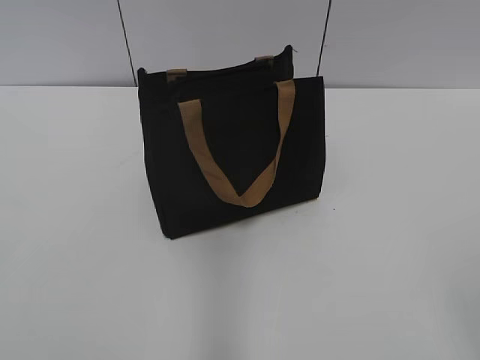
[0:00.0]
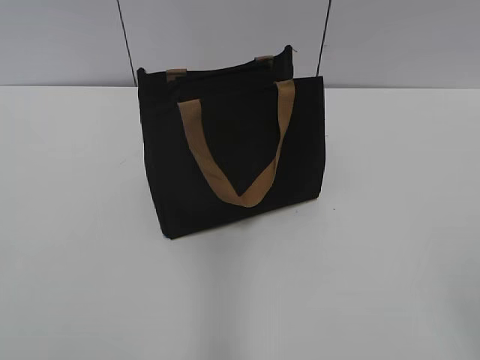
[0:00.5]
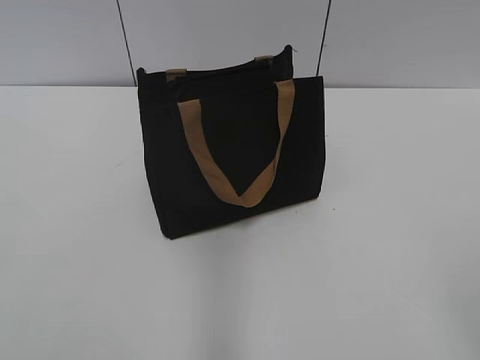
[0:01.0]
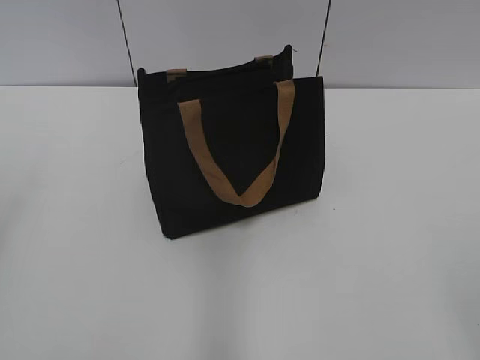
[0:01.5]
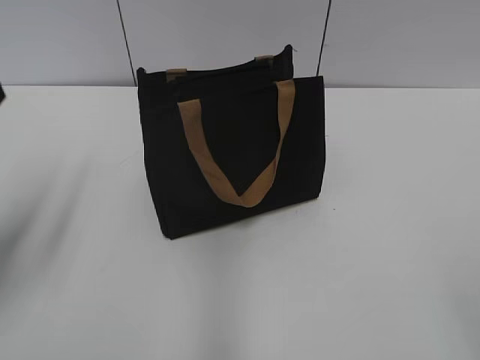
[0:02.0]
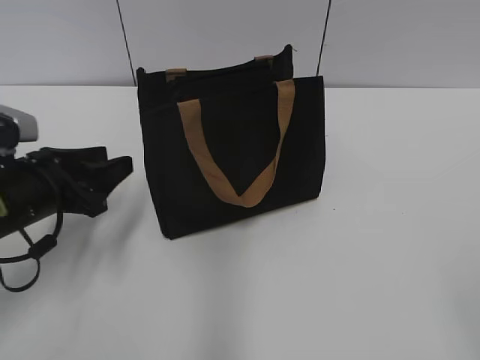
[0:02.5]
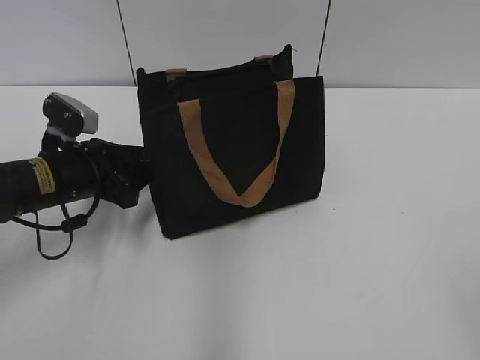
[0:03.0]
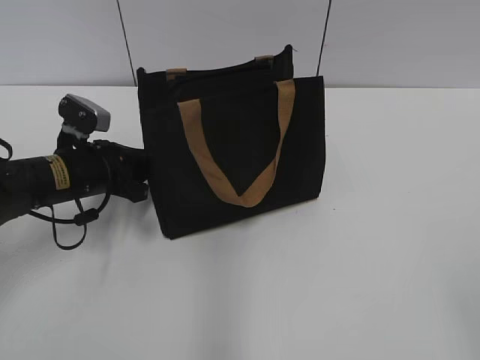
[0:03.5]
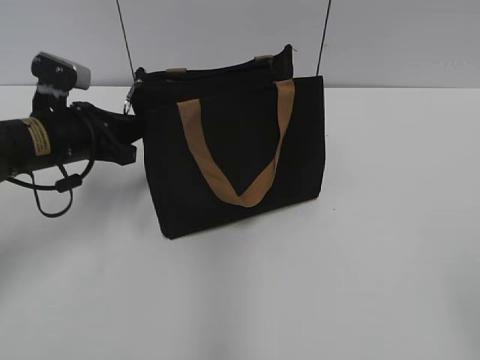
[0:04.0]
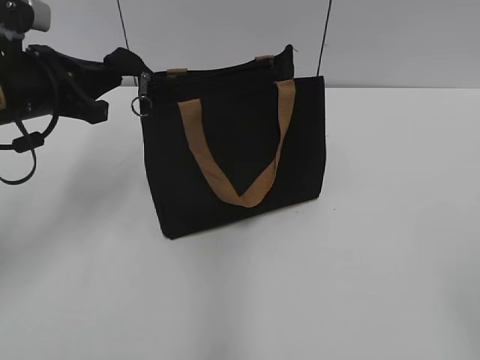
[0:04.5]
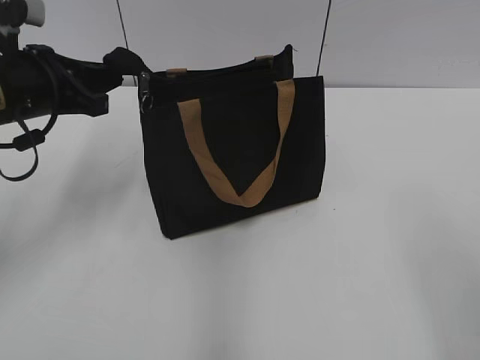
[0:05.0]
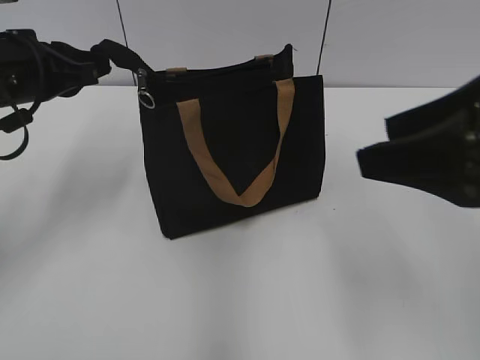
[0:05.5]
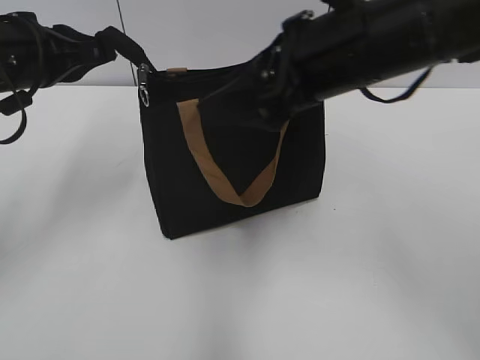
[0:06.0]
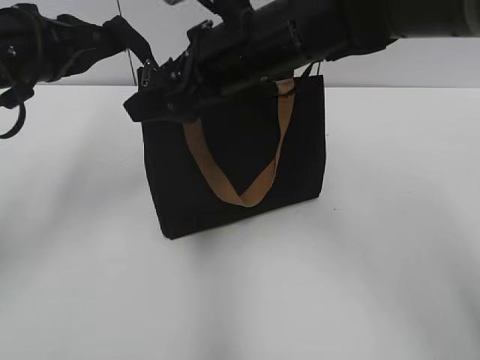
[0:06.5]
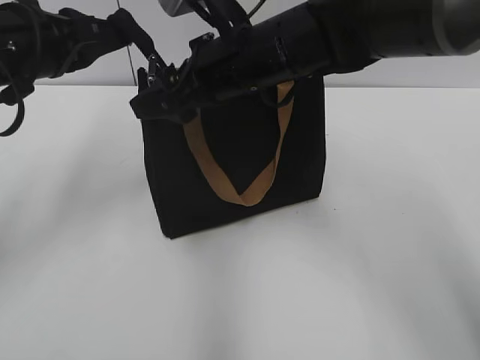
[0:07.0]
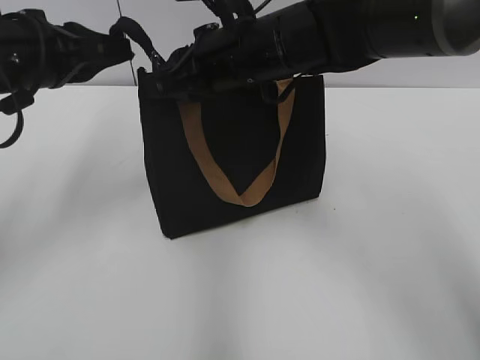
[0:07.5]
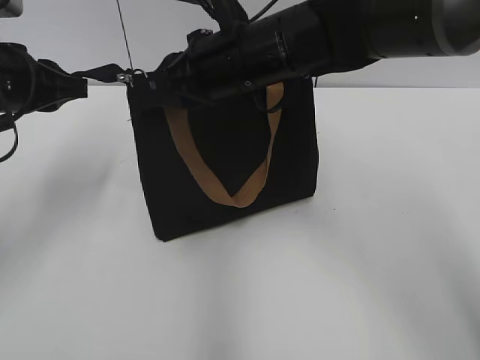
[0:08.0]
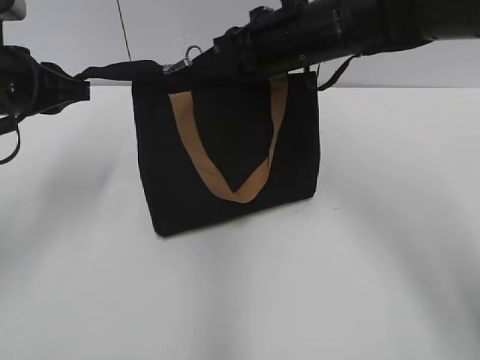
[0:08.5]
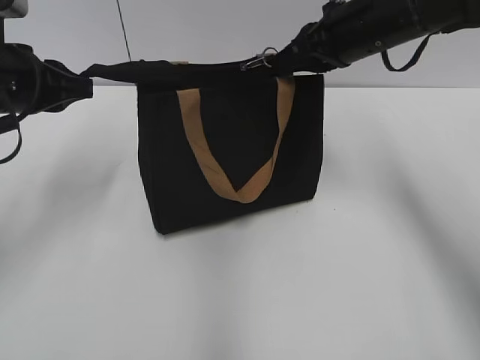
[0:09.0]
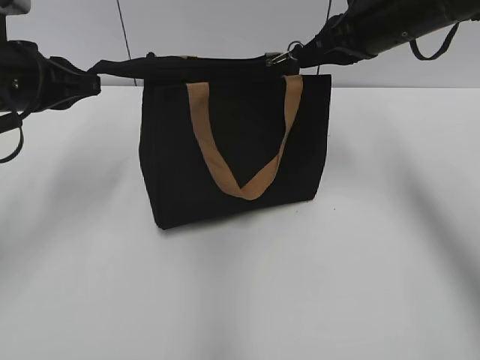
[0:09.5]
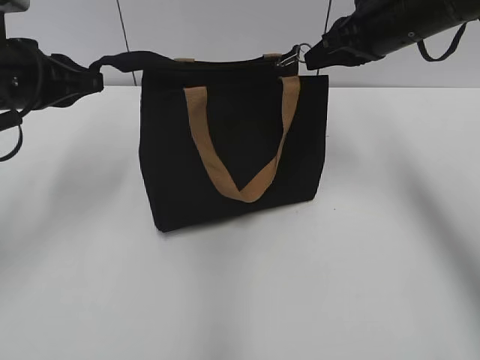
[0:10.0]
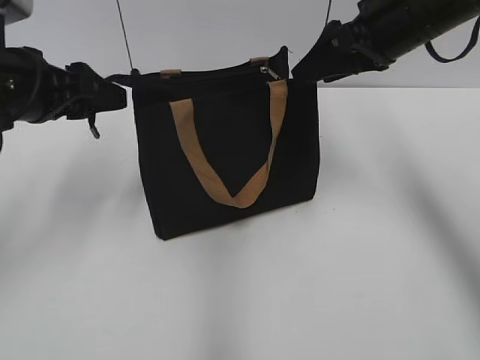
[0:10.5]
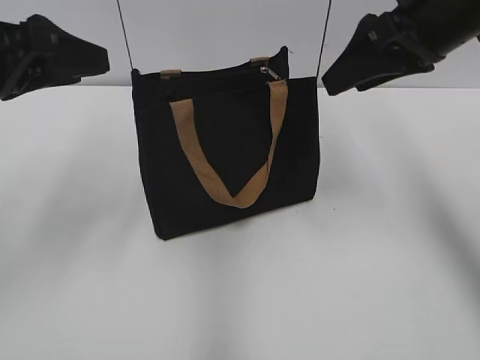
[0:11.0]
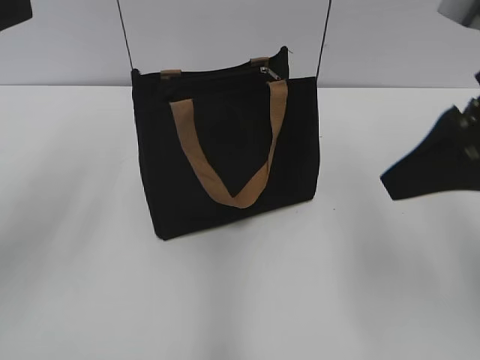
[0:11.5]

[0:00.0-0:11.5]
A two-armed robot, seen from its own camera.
Step, 0:00.0 to 0:10.0: Zip up the bag with your right hand.
0:02.0 to 0:04.0: The left gripper is displaced forward, downward and to the right by approximately 20 cm, and closes.
0:04.0 to 0:06.0: The right gripper is displaced forward and to the left by about 30 cm. The left gripper moves upward, about 10 cm.
0:06.0 to 0:07.5: The right gripper is displaced to the left, forward and downward by about 15 cm, and closes.
0:07.5 to 0:09.5: The right gripper shifts about 15 cm to the right.
0:09.5 to 0:11.5: The right gripper shifts some 15 cm backward, and opens up; the left gripper heads backward and upward, covering about 15 cm, and opens its fingers.

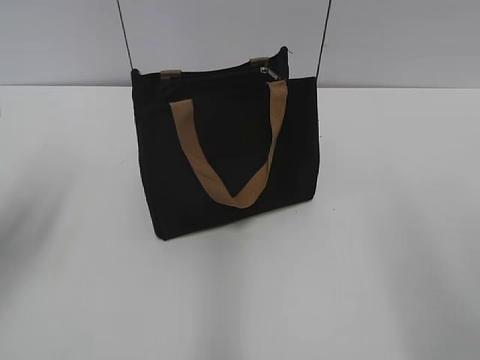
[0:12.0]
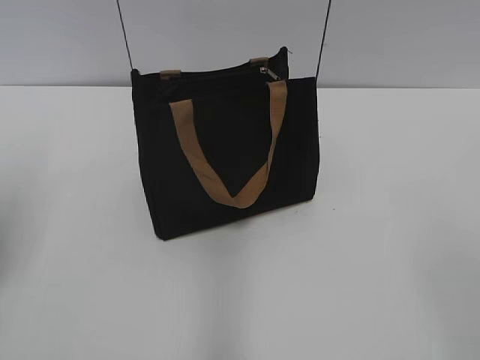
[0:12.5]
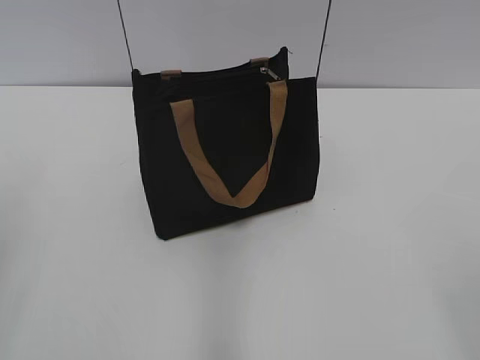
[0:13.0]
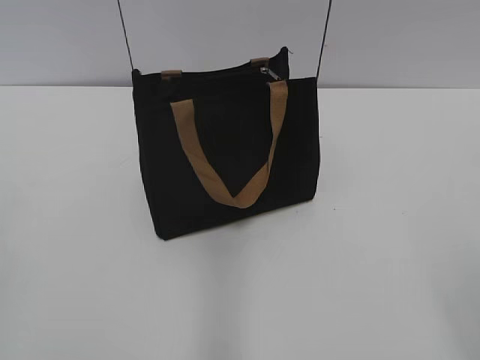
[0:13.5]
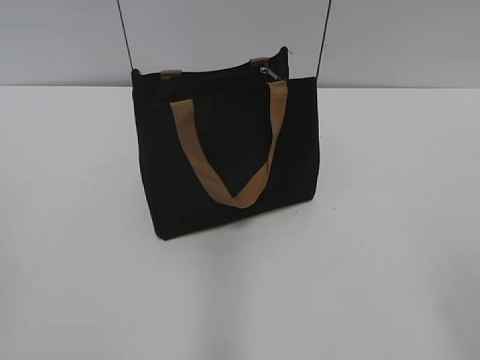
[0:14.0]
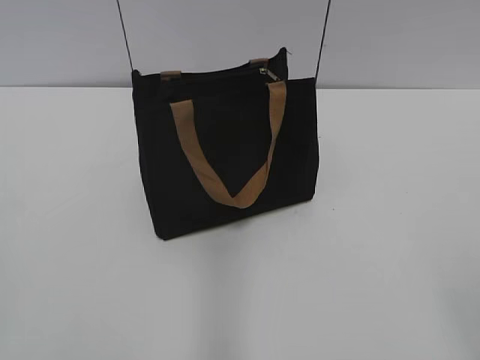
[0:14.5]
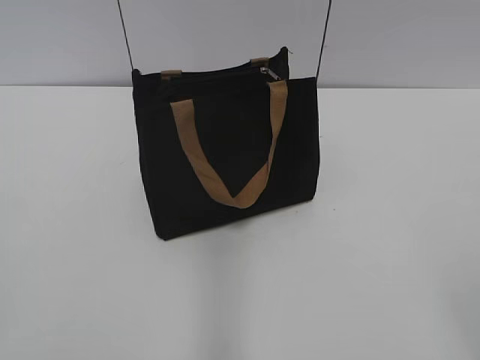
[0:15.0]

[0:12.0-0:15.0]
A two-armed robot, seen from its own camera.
0:12.0 to 0:13.5: The left gripper travels backward by some 20 cm.

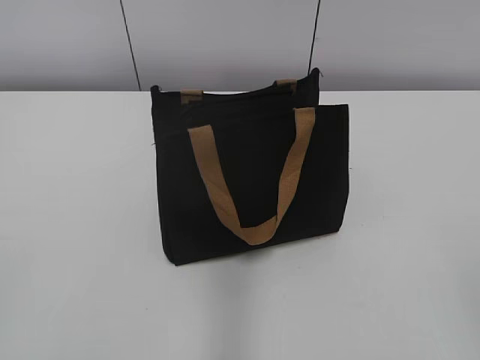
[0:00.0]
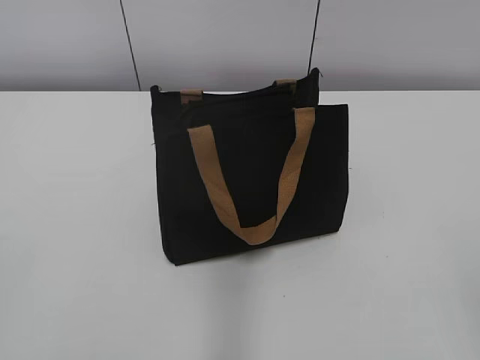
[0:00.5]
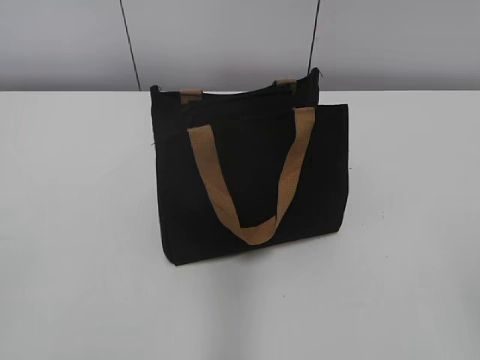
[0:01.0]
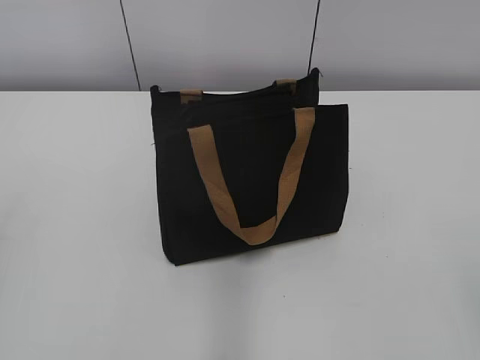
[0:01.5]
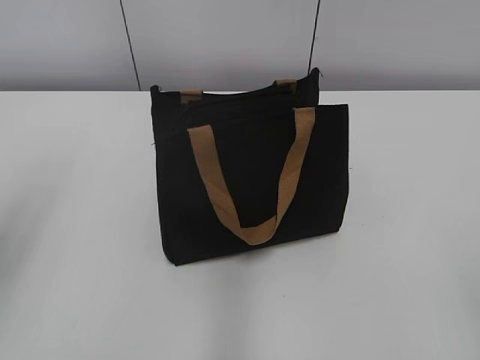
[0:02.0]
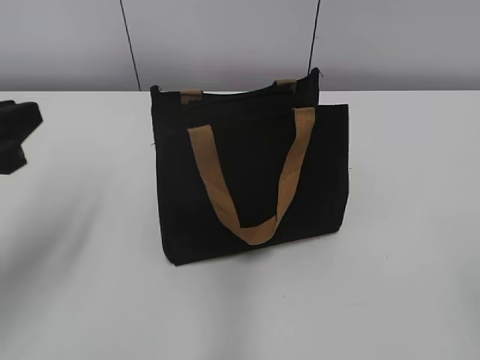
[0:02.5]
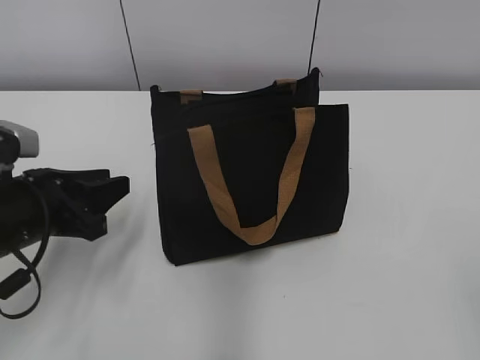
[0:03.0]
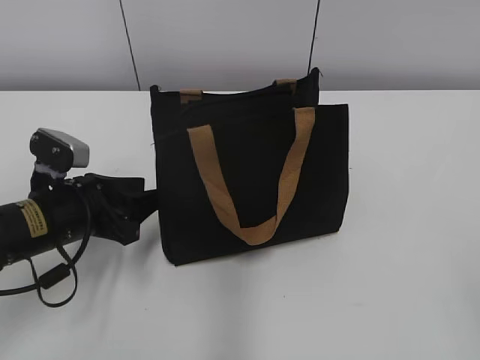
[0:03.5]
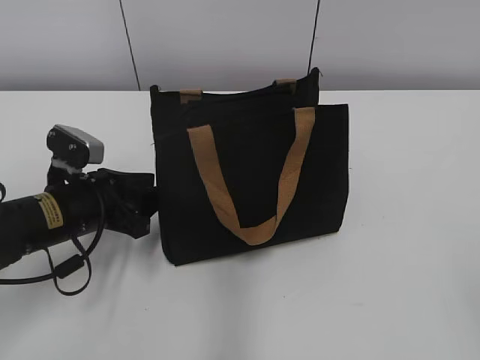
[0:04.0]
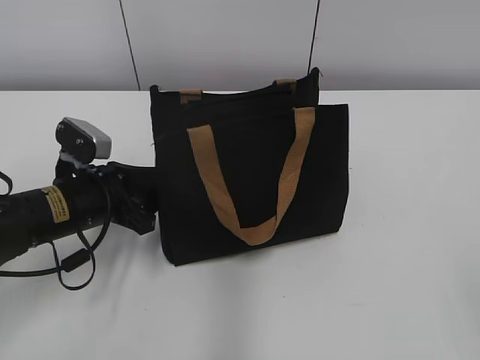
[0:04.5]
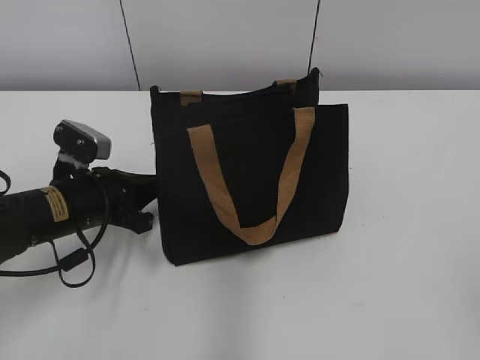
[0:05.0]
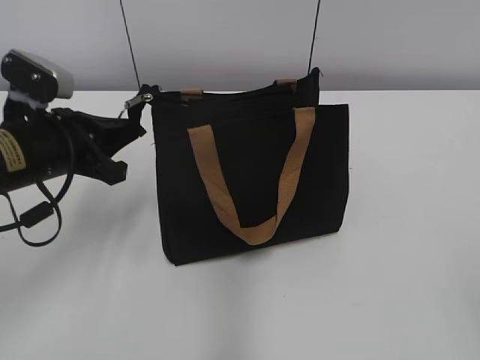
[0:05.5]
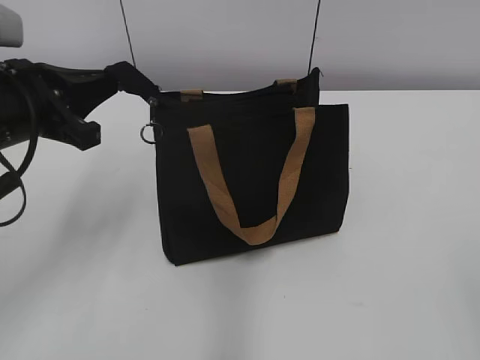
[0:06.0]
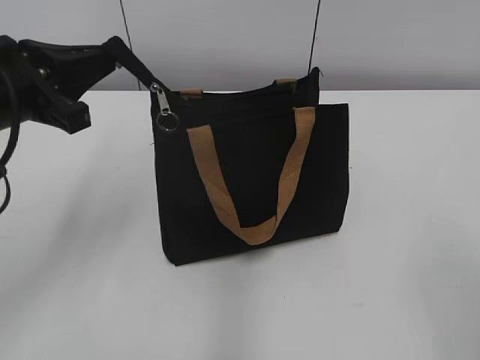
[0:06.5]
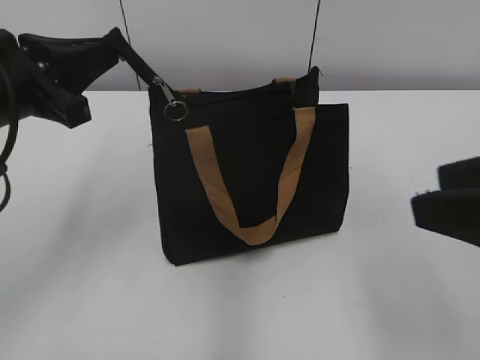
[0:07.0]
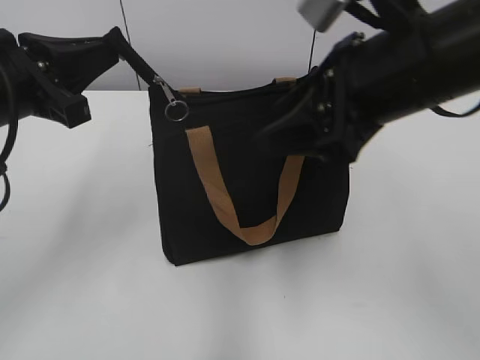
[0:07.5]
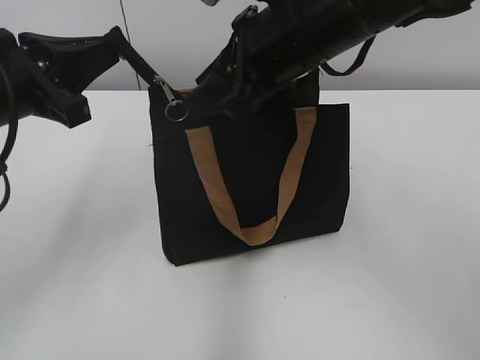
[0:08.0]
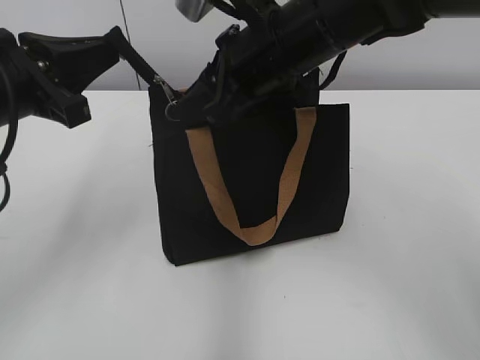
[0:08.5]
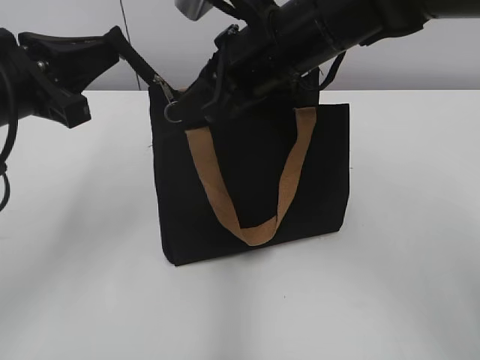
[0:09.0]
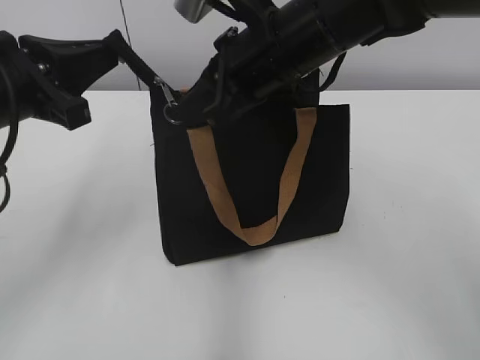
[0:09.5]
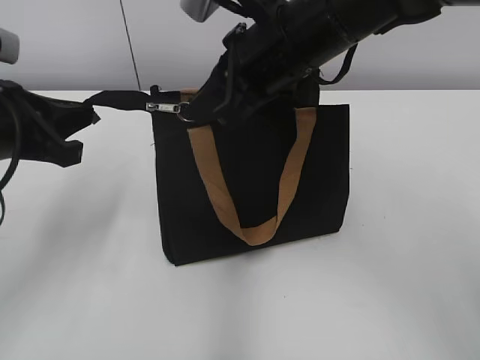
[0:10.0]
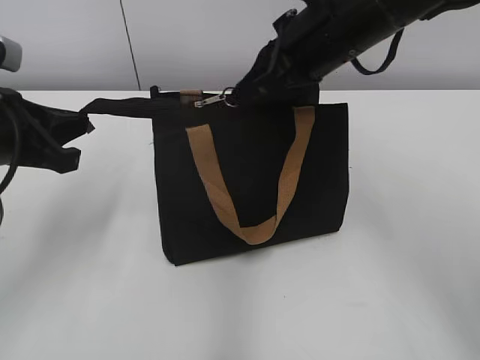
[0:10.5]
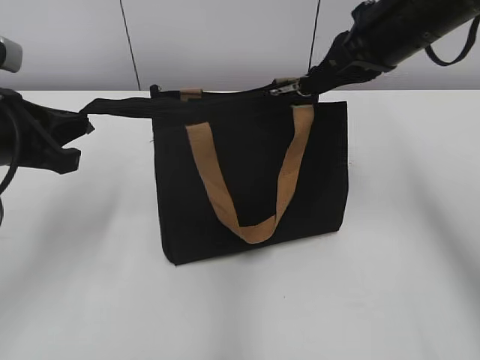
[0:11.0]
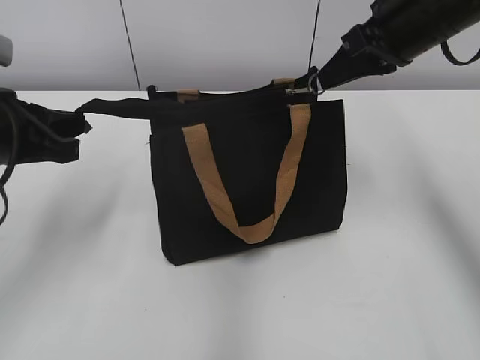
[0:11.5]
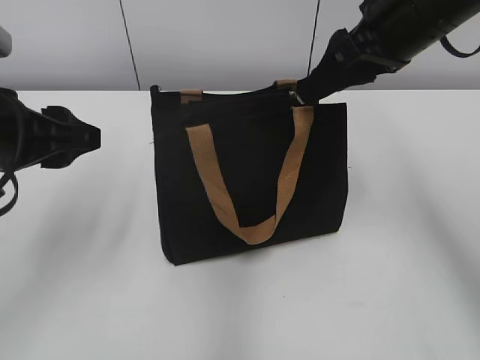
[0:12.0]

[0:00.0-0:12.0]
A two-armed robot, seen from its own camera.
Step, 0:00.0 to 0:11.5: Zip up the bag with your right hand.
0:02.0 to 0:04.0: The left gripper is displaced downward, forward and to the right by about 30 cm, and opens.
0:04.0 to 0:06.0: The left gripper goes roughly 15 cm upward, and closes up.
0:06.0 to 0:08.0: The right gripper shifts approximately 40 cm forward and to the left.
0:08.0 to 0:10.0: The right gripper closes up.
0:10.0 to 0:12.0: The left gripper opens. The right gripper travels to the right by some 10 cm, and opens its fingers.
